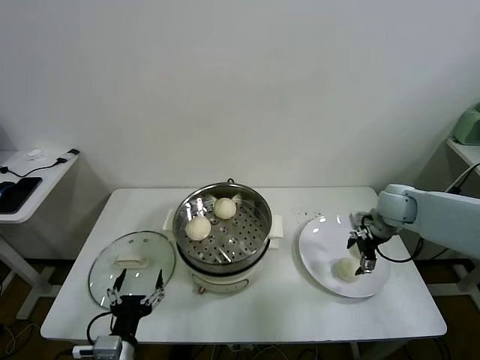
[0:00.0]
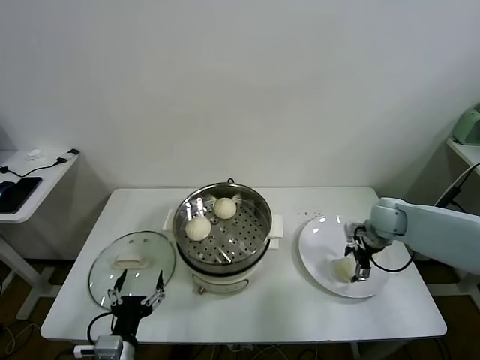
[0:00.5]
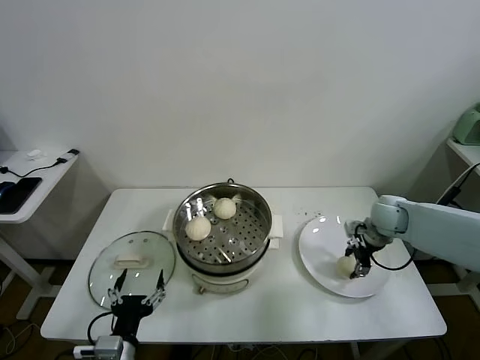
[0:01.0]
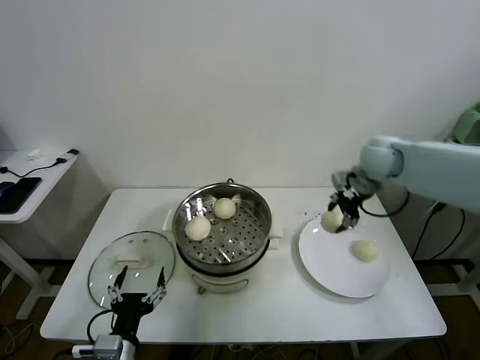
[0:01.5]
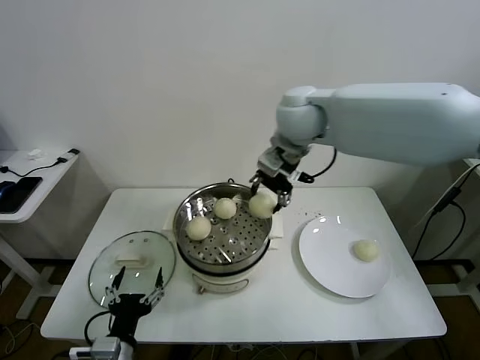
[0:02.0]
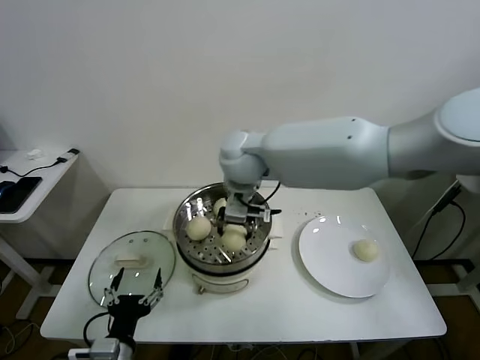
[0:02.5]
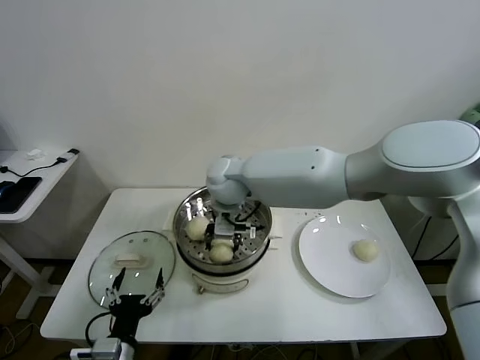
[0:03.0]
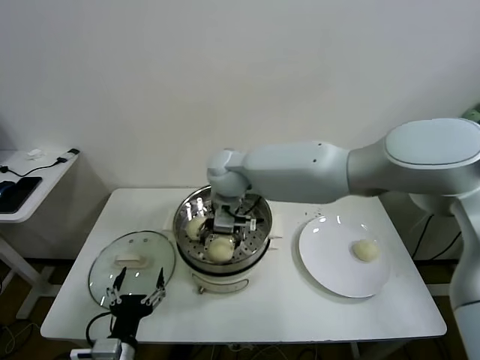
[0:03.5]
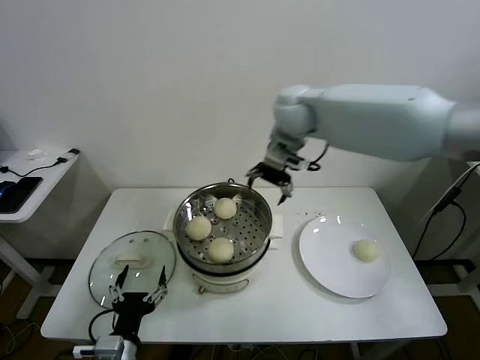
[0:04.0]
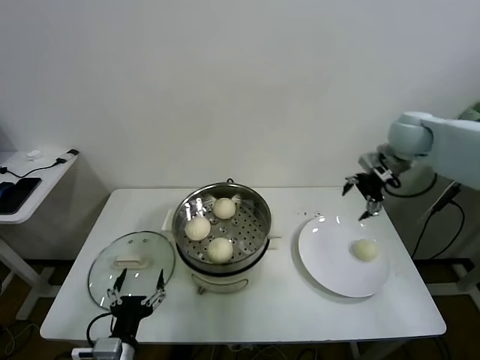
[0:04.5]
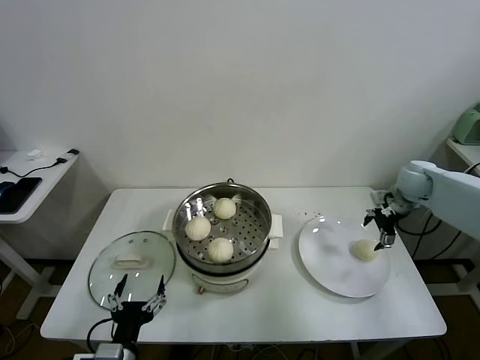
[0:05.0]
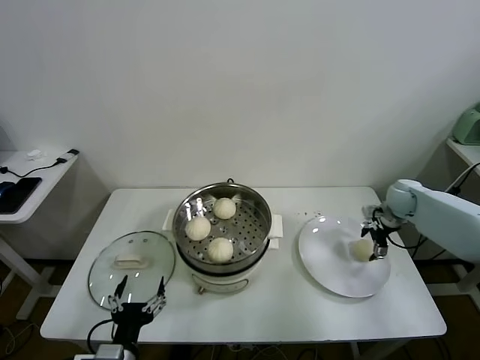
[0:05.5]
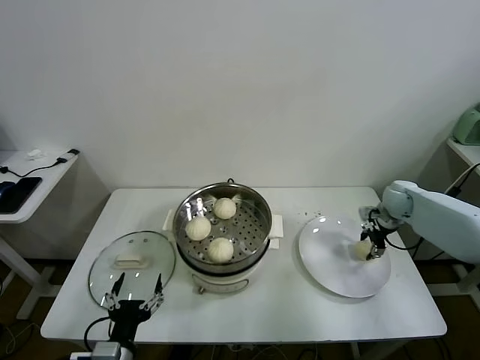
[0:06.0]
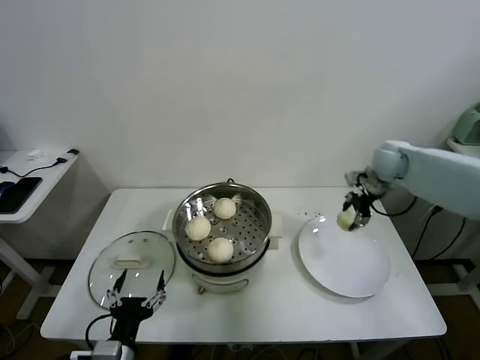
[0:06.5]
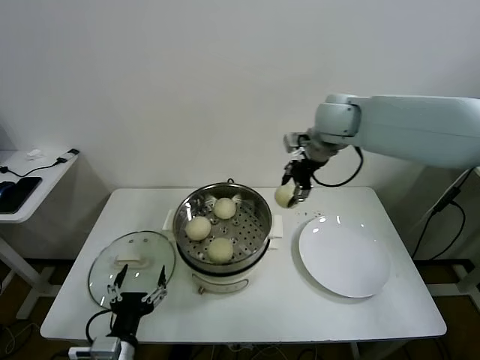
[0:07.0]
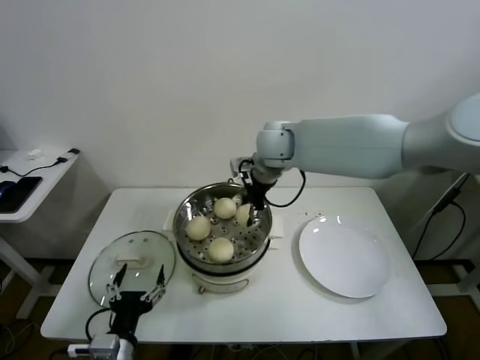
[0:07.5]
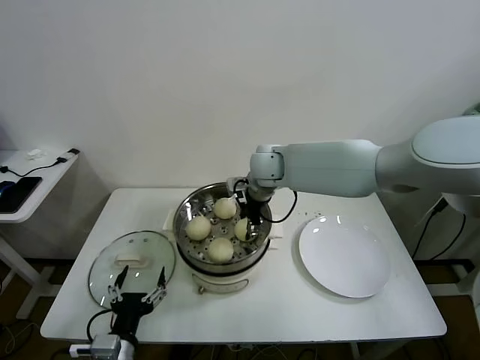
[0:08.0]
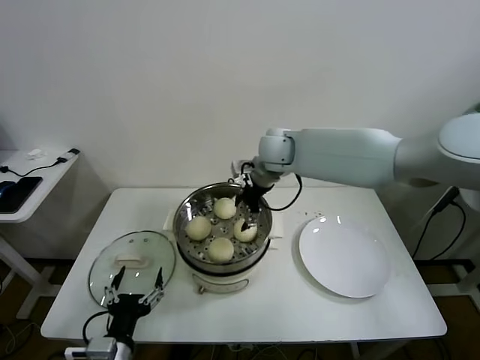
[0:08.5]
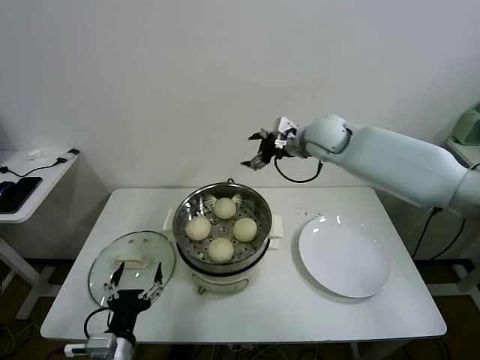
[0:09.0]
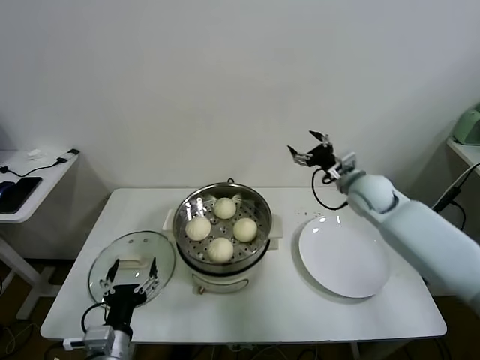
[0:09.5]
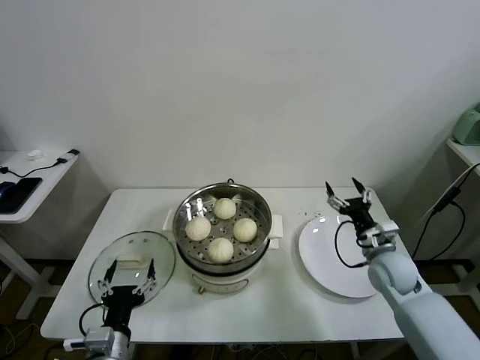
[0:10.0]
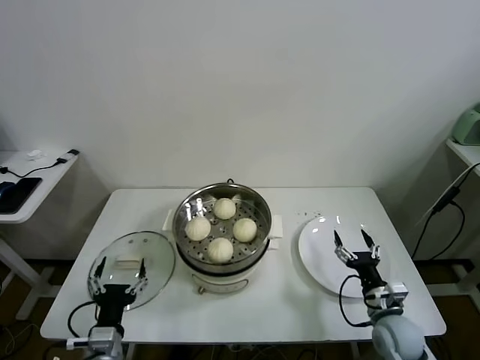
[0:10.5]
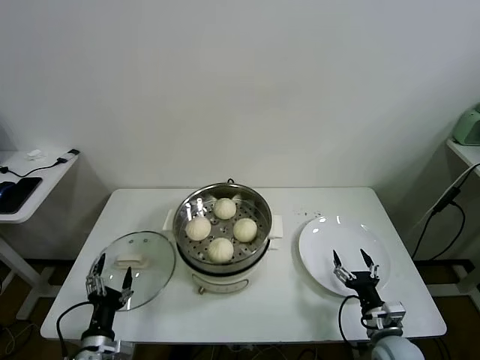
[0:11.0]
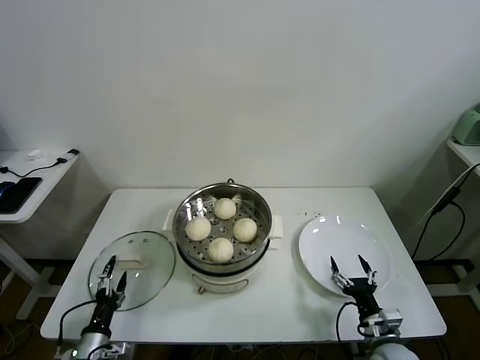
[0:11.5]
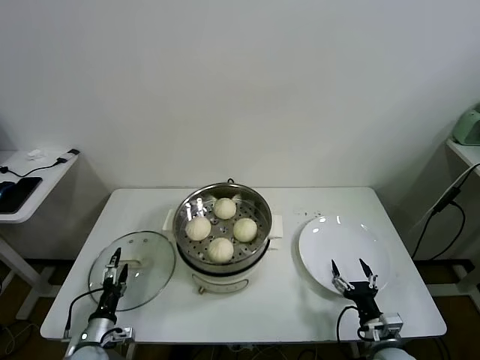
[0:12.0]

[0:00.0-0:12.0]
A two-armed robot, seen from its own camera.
Task of the whole recording: take steamed baozi put them in steamer.
Step, 0:01.0 to 0:03.0: Place the baozi on the steamer with right gripper.
Step, 0:03.5 to 0:05.5: Grasp the baozi in the plate with right gripper.
Step, 0:06.0 to 0:08.0: Place the baozi on the steamer with right gripper.
0:00.0 to 0:02.0: The right gripper is displaced to the left and upward by roughly 35 cm, and closes up.
0:02.0 to 0:04.0: The right gripper reaches some 15 cm to the left, then returns, and opens its fingers.
0:04.0 to 0:06.0: The right gripper goes about 40 cm to the right and downward, and closes.
0:06.0 to 0:08.0: The right gripper travels to the left by approximately 35 cm.
0:08.0 to 0:10.0: The right gripper travels to the right, downward and backward by some 35 cm, and opens up.
0:10.0 to 0:12.0: The right gripper moves backward and downward, approximately 20 cm. The left gripper moves downward, to the left and forward, some 20 cm.

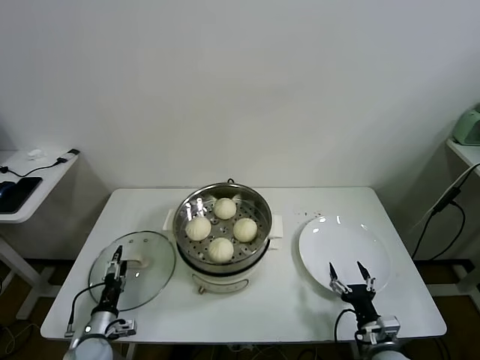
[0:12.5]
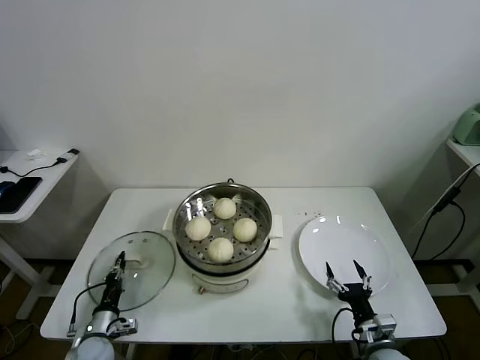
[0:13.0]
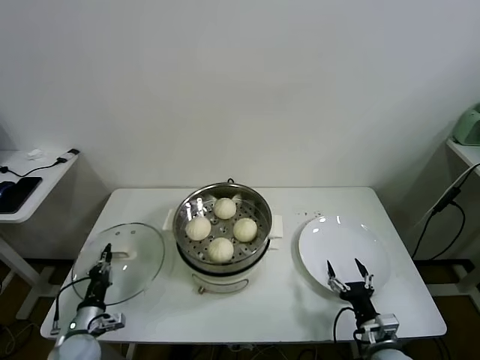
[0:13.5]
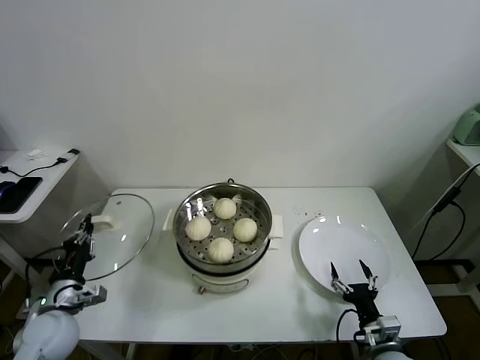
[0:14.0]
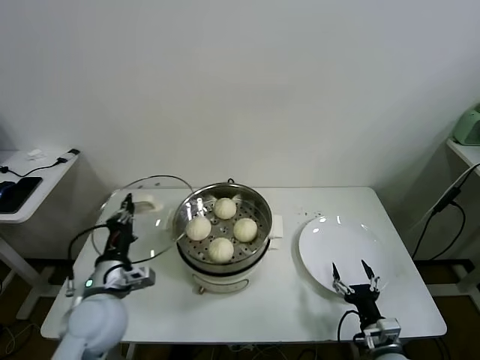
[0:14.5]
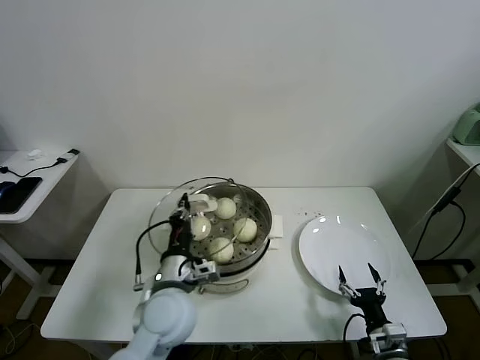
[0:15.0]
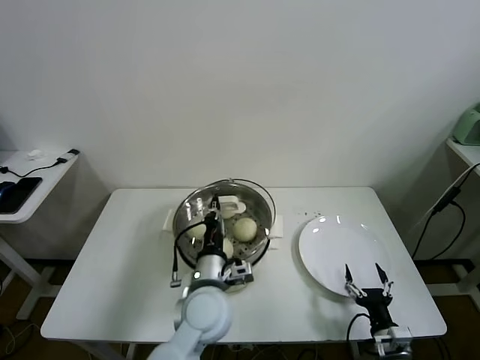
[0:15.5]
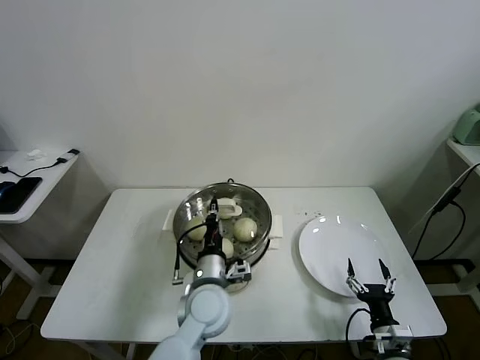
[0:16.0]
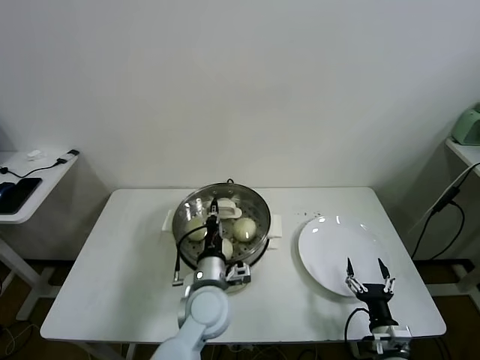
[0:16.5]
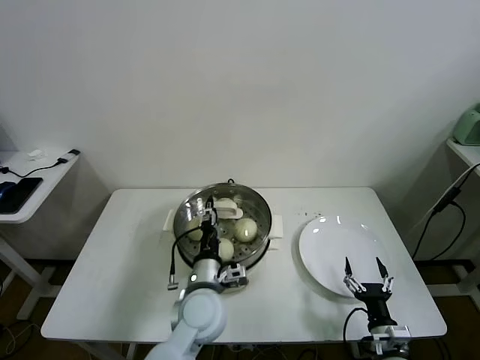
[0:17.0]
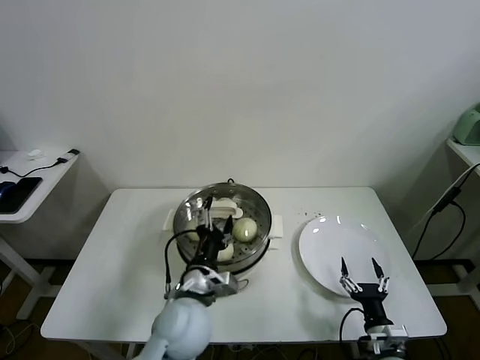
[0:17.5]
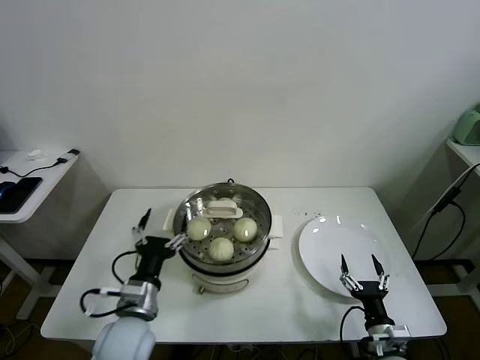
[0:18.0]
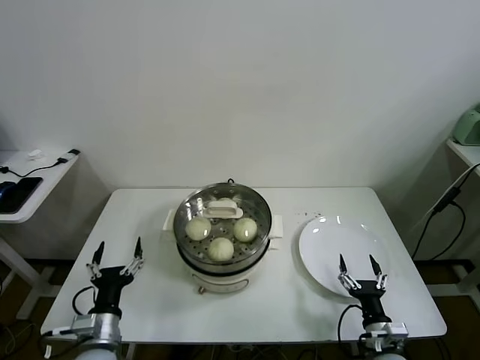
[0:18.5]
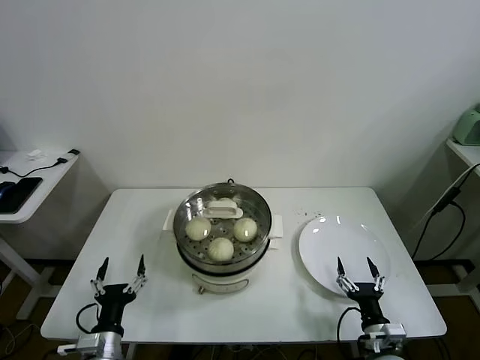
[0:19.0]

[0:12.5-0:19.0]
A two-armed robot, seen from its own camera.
Task of the whole recording: take steamed baozi put them in steamer.
Step, 0:13.5 to 0:17.0: Place the pot lid on the steamer with left gripper.
0:12.5 to 0:14.5: The left gripper heads upward, covering about 25 cm, and closes.
0:14.5 to 0:17.0: The left gripper shifts roughly 20 cm to the right, and opens its fingers.
0:17.0 to 0:19.0: The left gripper is displaced to the left and backward by some 25 cm, and opens its fingers.
